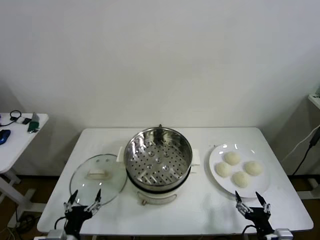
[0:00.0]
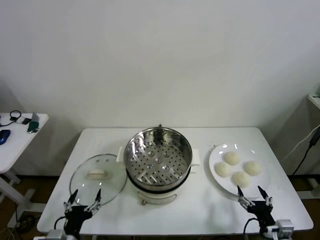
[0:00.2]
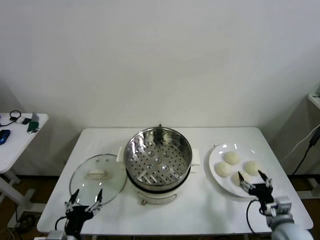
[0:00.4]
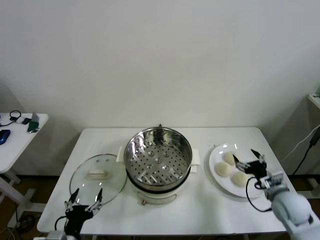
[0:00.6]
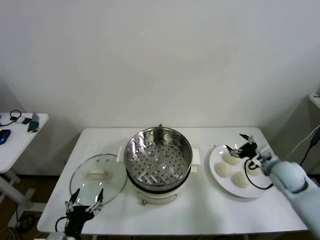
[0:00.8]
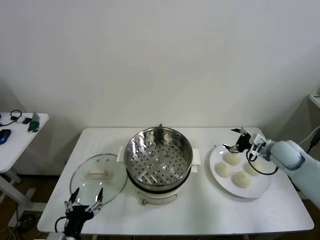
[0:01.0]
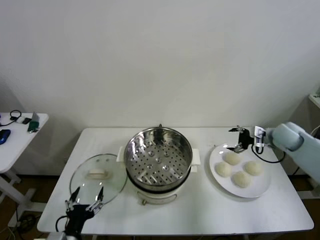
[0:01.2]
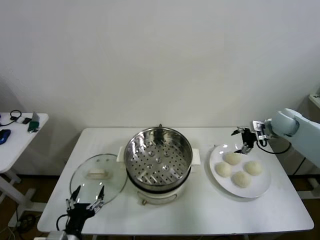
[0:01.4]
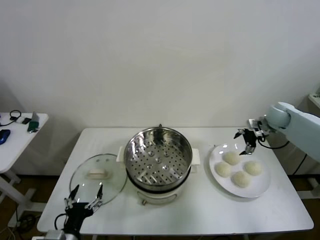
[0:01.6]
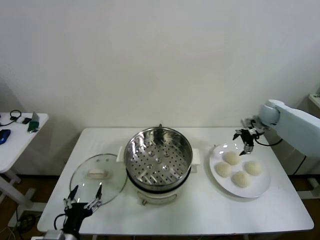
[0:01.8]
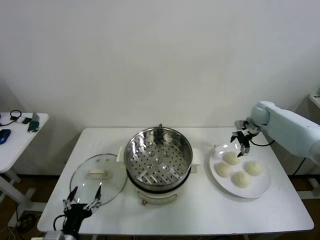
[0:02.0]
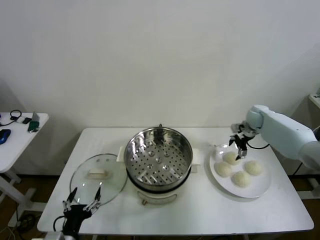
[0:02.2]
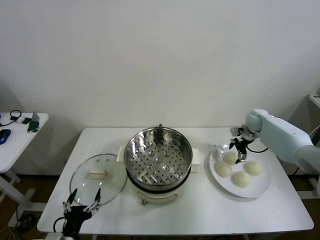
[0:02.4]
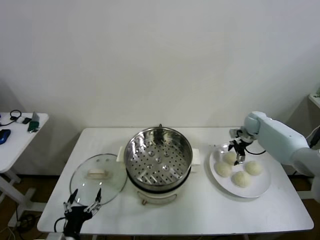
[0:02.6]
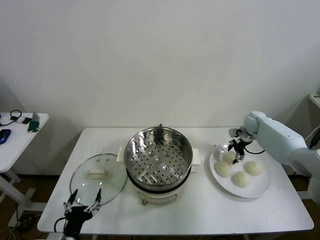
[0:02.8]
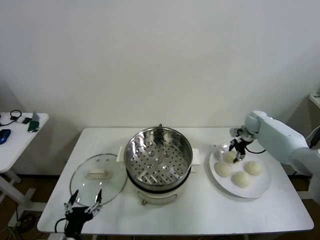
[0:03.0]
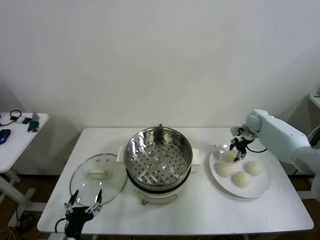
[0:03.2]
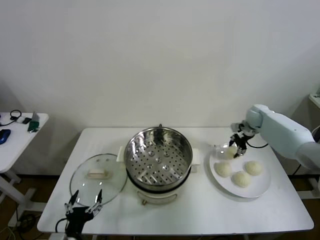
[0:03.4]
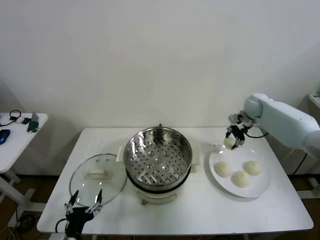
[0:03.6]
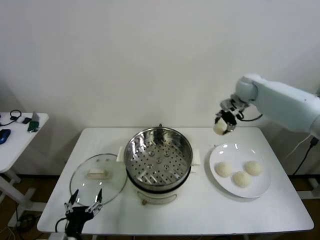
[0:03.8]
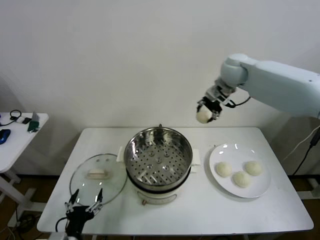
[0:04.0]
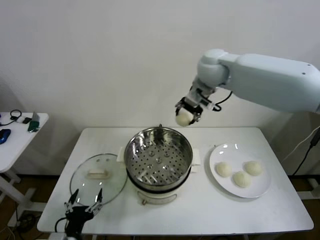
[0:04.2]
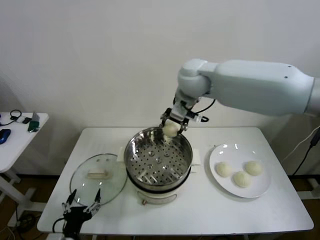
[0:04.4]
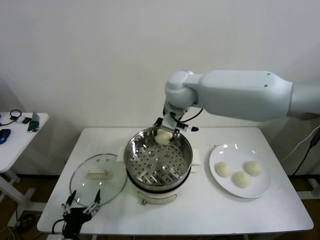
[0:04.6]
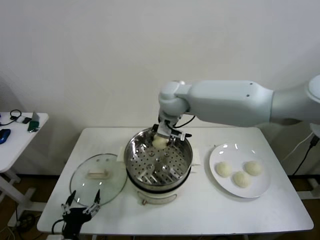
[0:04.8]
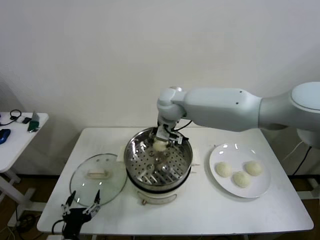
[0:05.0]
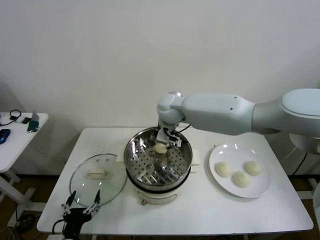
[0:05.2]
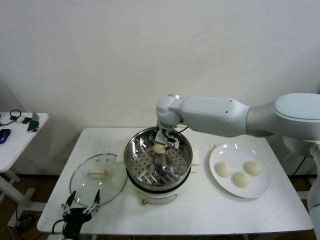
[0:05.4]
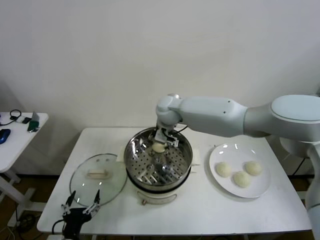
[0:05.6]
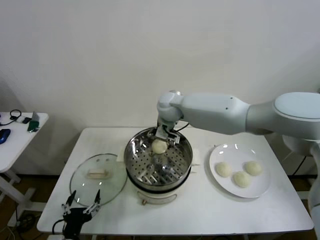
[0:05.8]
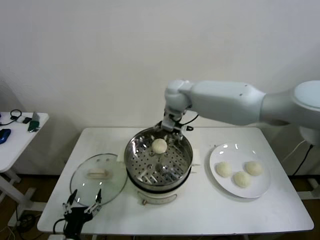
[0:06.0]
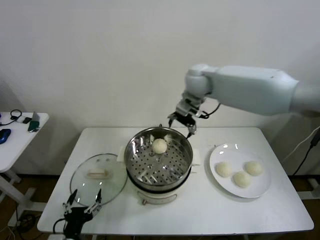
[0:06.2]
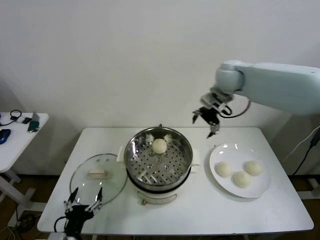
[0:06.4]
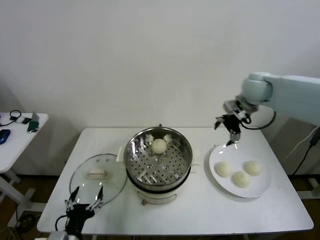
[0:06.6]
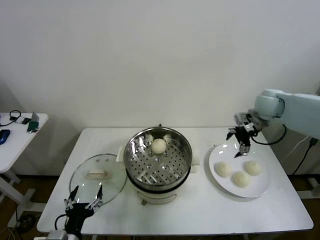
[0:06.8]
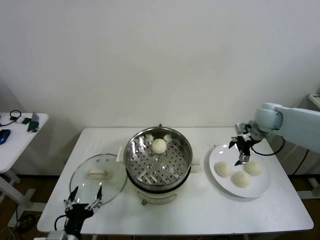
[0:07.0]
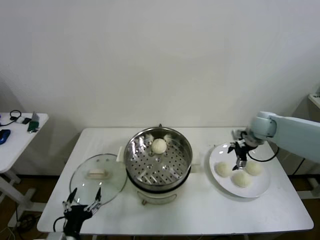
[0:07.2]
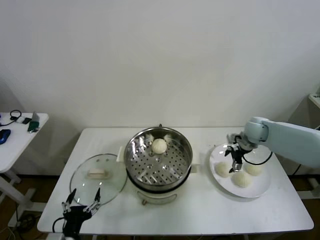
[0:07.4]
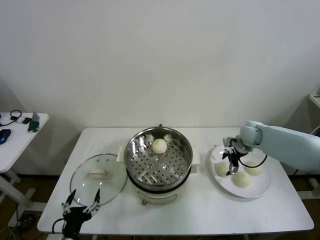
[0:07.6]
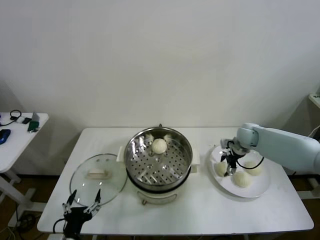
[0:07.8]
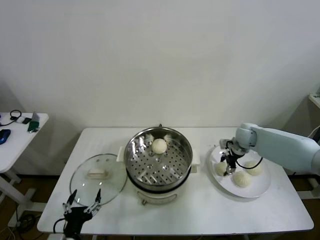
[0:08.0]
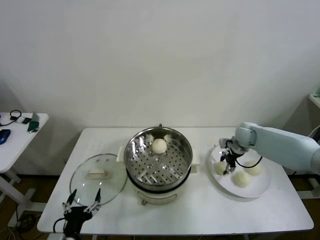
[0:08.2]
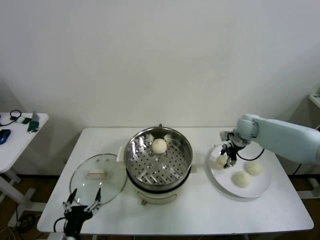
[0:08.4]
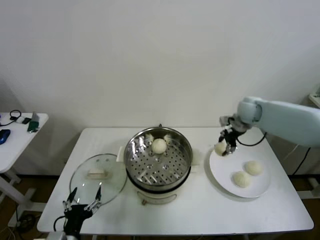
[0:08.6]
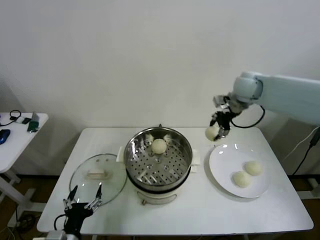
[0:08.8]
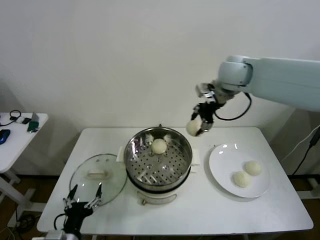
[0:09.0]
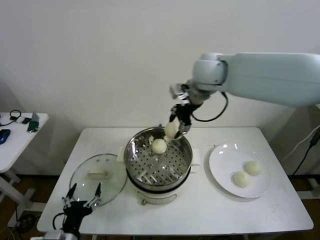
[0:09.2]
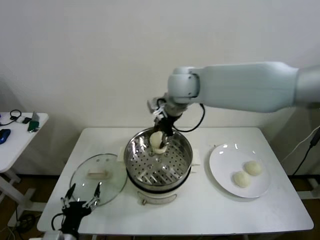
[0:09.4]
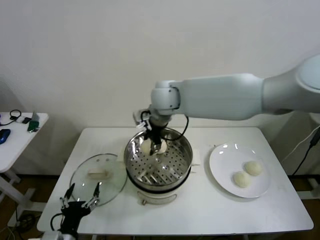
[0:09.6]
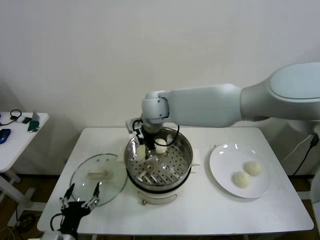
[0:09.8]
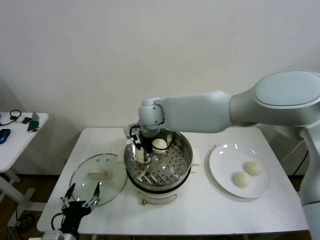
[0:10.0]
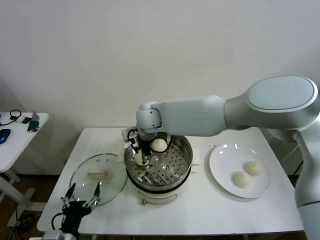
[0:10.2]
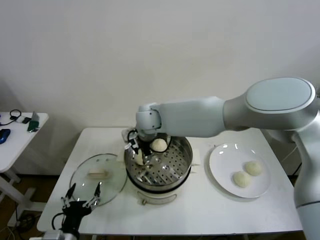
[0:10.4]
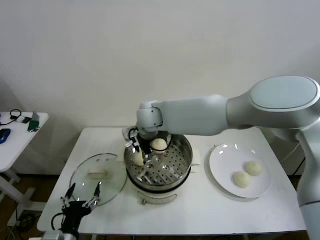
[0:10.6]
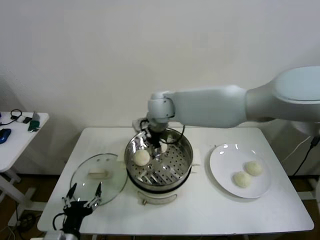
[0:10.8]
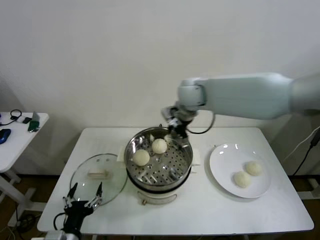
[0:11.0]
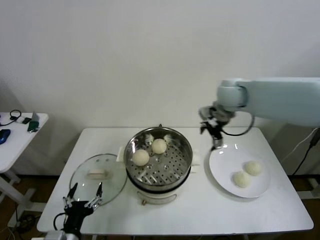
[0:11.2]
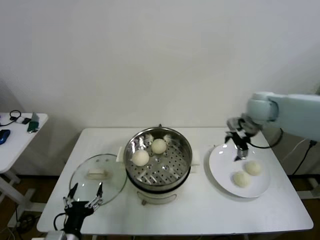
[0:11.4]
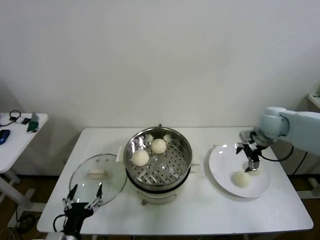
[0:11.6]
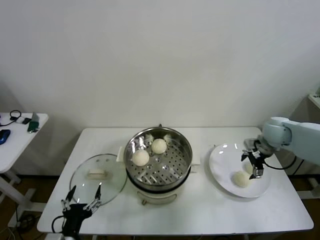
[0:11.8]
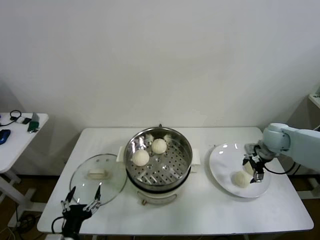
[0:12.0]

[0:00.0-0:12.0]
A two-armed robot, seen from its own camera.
Step, 0:00.0 to 0:02.8: Grasp the baozi in the plate with right gripper.
Step, 0:03.0 to 0:05.6: Place the baozi on the steamer with right gripper.
Step, 0:06.0 to 0:08.0: Grasp the baozi in the plate with right gripper.
Step, 0:08.2 to 0:10.6: Place the baozi on the steamer with right gripper.
0:01.6 to 0:03.0: The right gripper shifts approximately 10 cm downward, and closes up.
0:03.0 to 0:04.4: The right gripper is displaced to the left and upward by roughly 40 cm.
0:04.4 to 0:06.0: The right gripper moves forward, approximately 5 cm, reaches about 10 cm downward, then returns, and opens its fingers.
0:06.0 to 0:07.6: The right gripper shifts about 35 cm to the right and downward.
0:07.6 to 0:09.0: The right gripper heads upward and to the left, covering some 35 cm, and closes.
0:09.0 to 0:10.4: The right gripper shifts approximately 25 cm to the left and downward, and opens its fingers.
0:10.4 to 0:12.0: The right gripper travels to the right by approximately 40 cm.

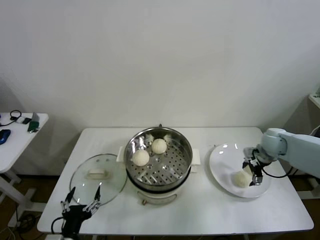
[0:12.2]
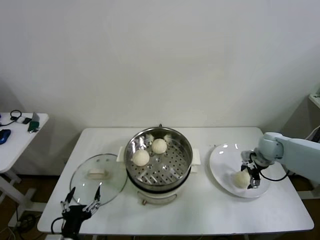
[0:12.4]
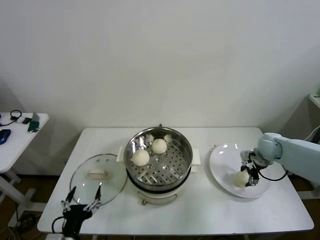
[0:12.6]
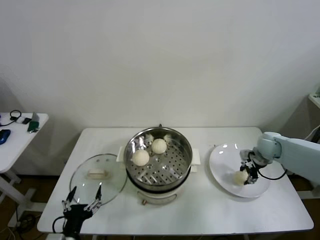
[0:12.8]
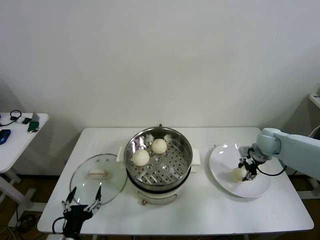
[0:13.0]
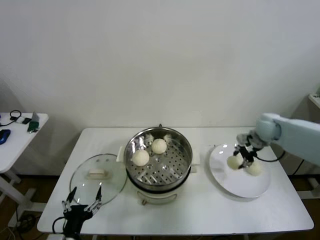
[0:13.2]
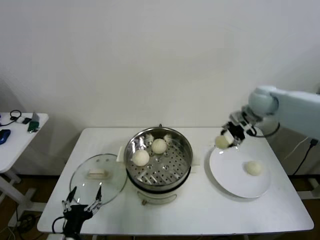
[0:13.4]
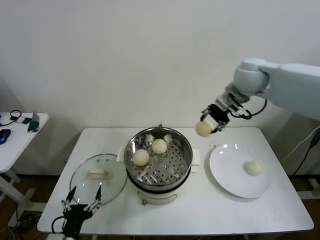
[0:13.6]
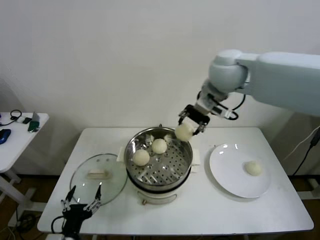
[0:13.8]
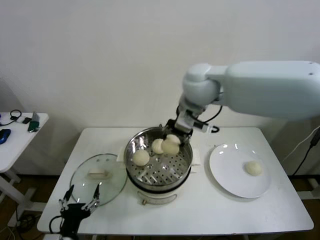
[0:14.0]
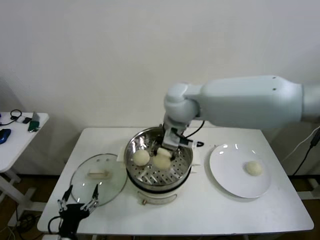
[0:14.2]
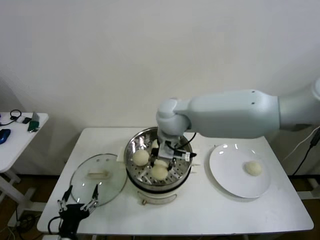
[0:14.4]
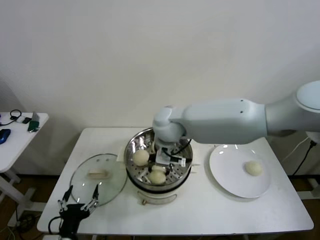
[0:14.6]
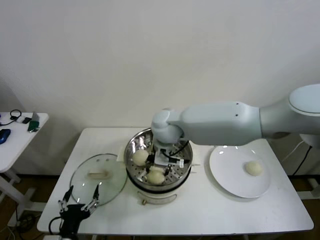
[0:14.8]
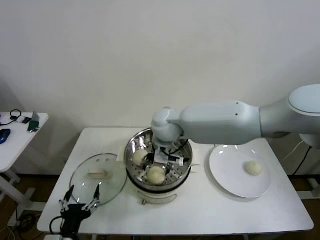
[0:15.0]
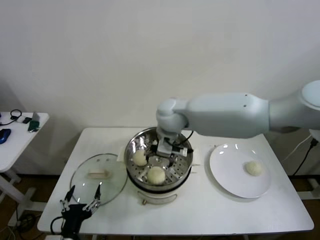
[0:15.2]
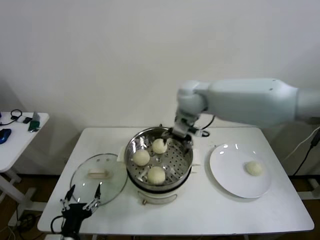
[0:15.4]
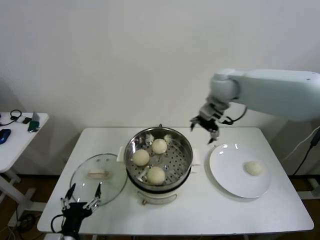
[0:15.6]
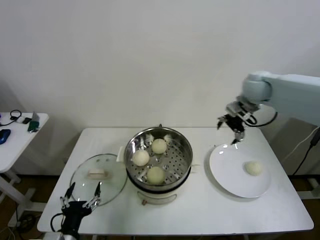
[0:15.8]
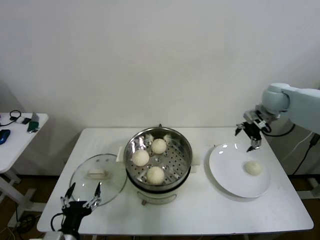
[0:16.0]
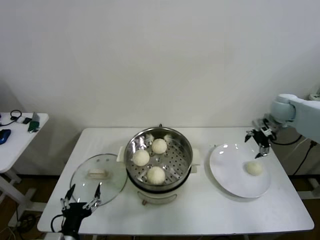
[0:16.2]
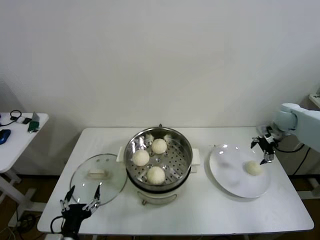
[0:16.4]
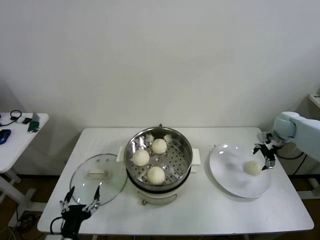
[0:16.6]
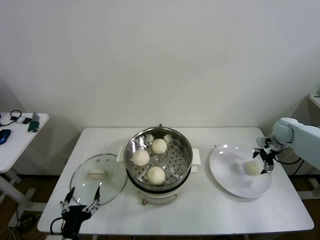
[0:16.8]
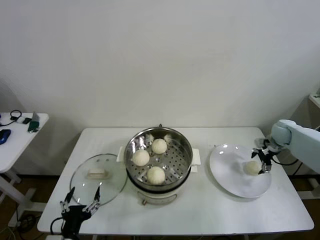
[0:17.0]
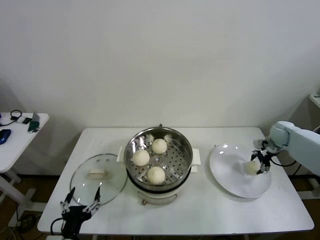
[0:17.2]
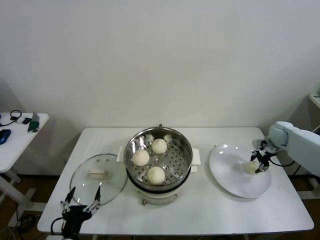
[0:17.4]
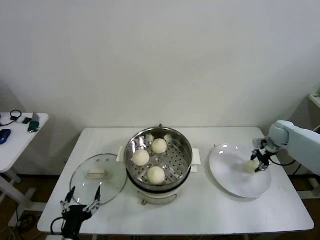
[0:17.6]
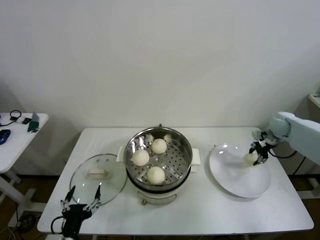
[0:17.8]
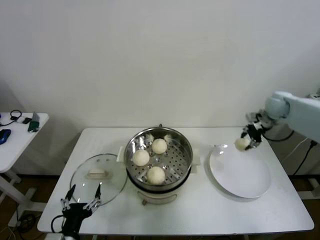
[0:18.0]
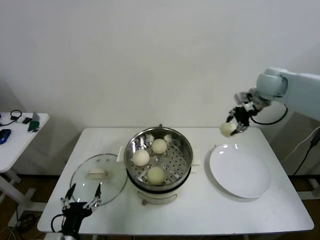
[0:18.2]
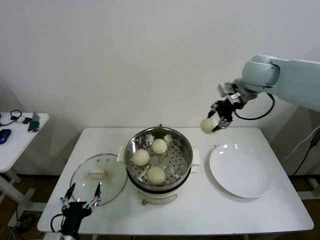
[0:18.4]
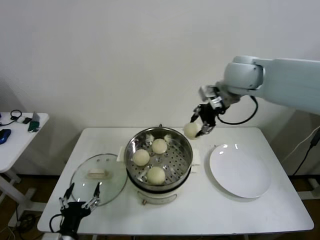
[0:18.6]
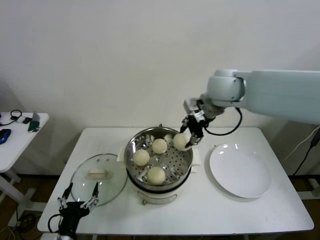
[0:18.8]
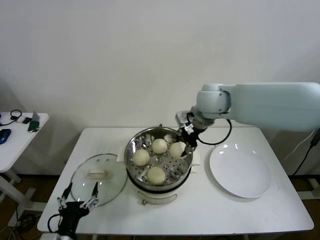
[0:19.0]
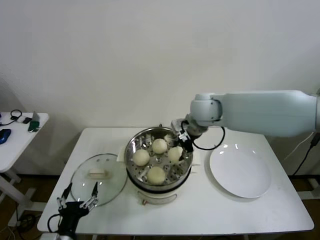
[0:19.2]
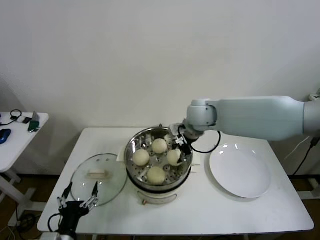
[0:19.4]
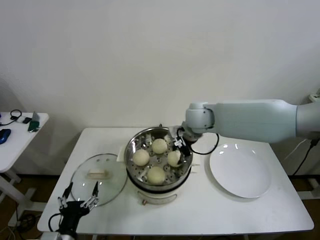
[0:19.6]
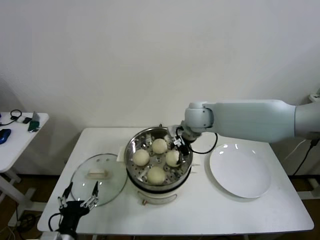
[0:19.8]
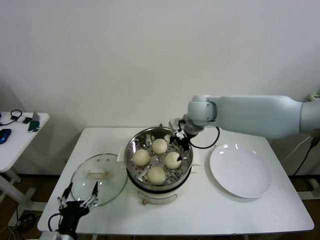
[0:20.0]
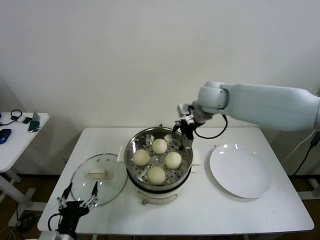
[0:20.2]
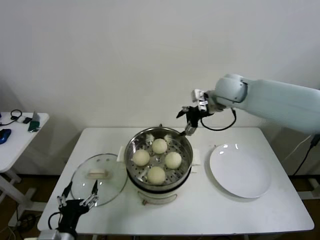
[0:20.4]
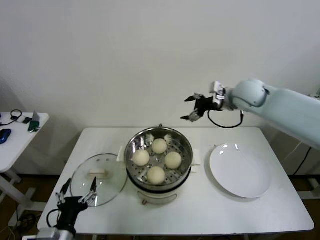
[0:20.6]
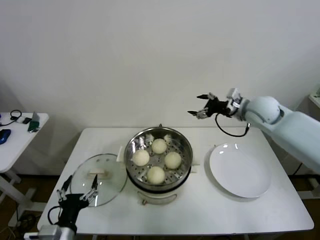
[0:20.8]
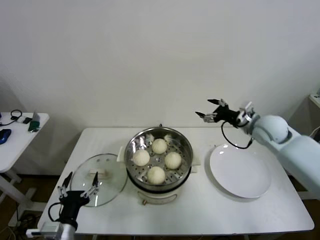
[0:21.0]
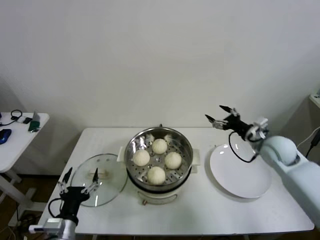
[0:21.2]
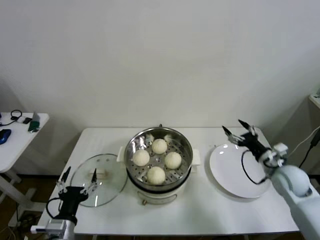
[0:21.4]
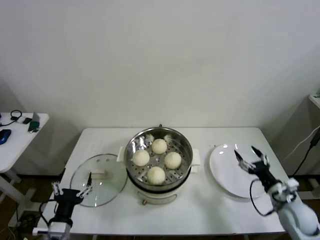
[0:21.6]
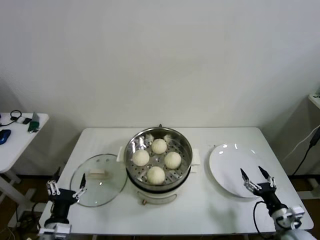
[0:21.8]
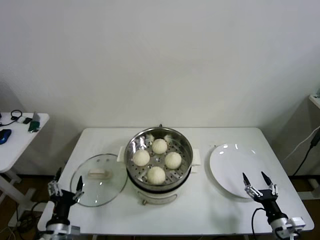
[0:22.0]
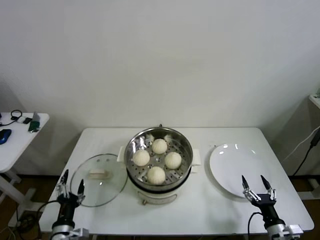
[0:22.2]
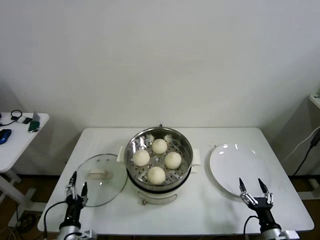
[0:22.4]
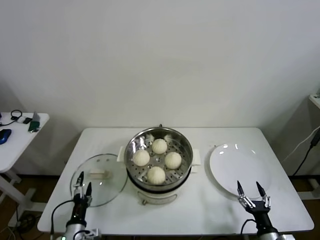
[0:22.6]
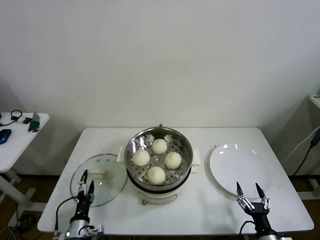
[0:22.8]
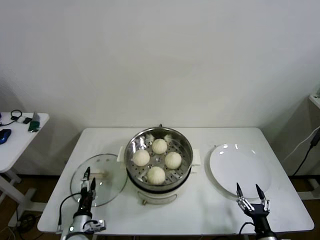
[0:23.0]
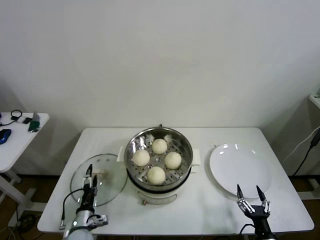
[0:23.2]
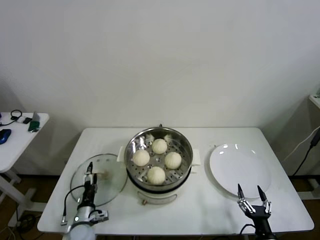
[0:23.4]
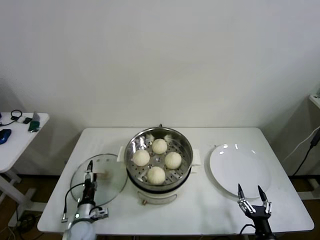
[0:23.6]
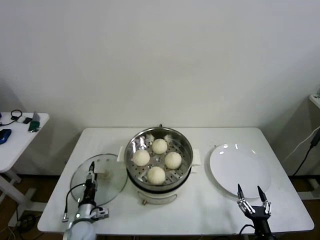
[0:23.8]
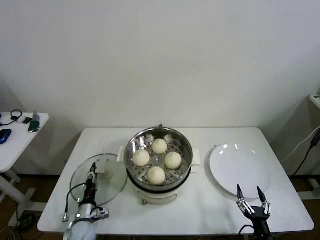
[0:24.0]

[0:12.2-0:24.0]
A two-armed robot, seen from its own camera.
Step, 0:12.8 to 0:15.0: Place the baozi on the steamer with right gripper.
Step, 0:15.2 to 0:17.4: Grasp the baozi in the plate with right gripper.
Step, 0:17.6 to 0:19.8: Place the baozi on the steamer with right gripper.
0:12.2 to 0:13.6: The right gripper moves upward and to the left, about 35 cm, and closes up.
0:13.6 to 0:15.2: The right gripper is displaced to the left and downward by roughly 20 cm, and opens up.
0:15.2 to 0:16.6: The right gripper goes about 40 cm to the right.
0:16.6 to 0:18.2: The right gripper goes some 25 cm upward and to the left, and closes up.
0:18.2 to 0:19.6: The right gripper is displaced to the left and downward by roughly 25 cm.
0:19.6 to 0:21.0: The right gripper moves to the right, roughly 25 cm, and opens up.
0:21.0 to 0:22.6: The right gripper goes about 40 cm backward and downward, while the left gripper moves downward, about 15 cm.
0:22.6 to 0:24.0: The left gripper is displaced forward and downward by about 10 cm, and closes its fingers.
